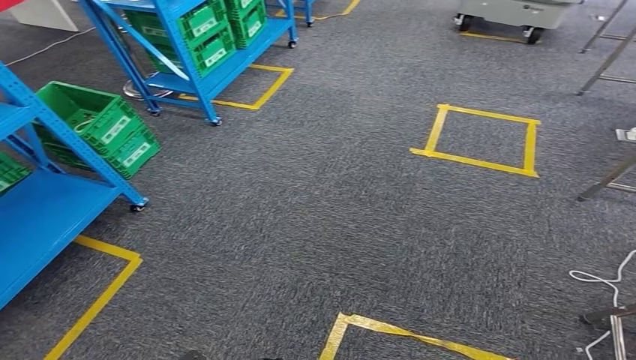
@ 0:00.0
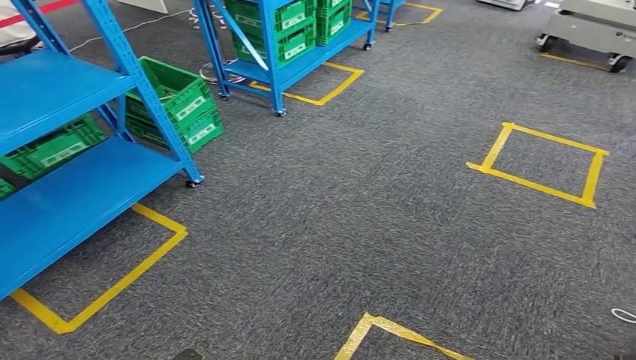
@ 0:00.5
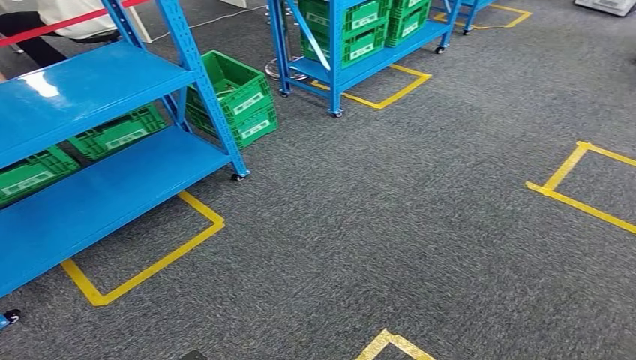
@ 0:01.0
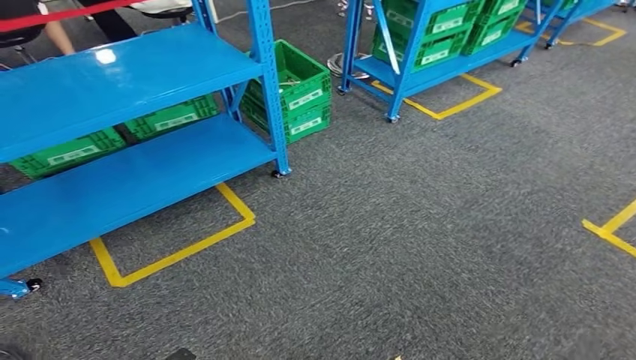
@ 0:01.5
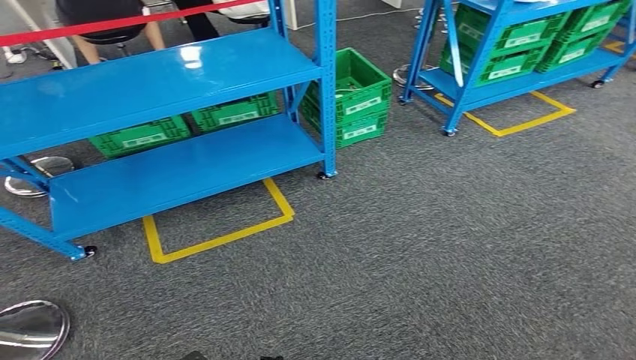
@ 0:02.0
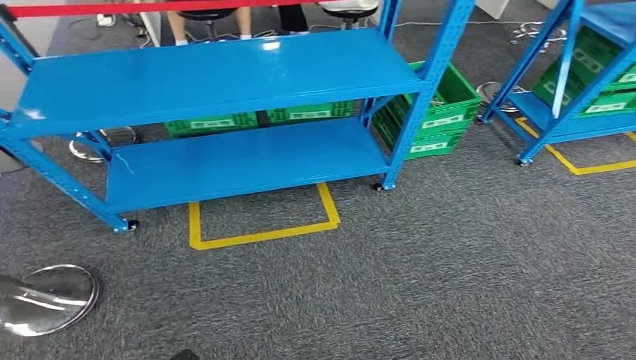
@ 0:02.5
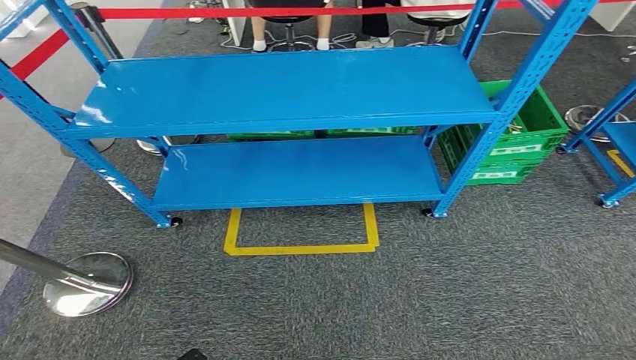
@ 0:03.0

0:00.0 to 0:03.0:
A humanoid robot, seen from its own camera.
Step, 0:00.0 to 0:03.0: Return to the initial position at the workbench.

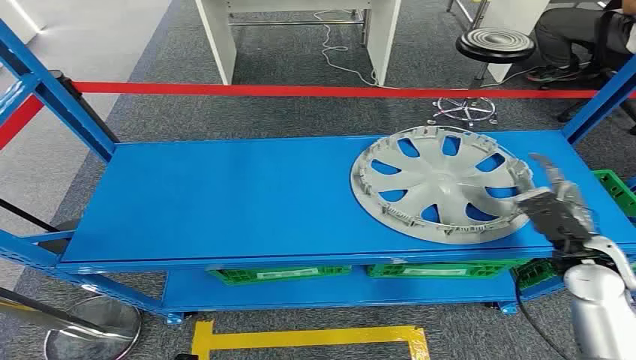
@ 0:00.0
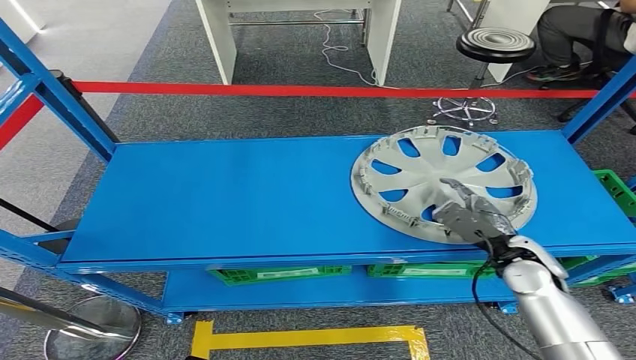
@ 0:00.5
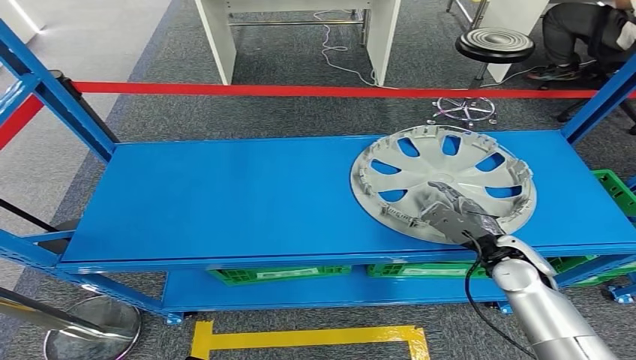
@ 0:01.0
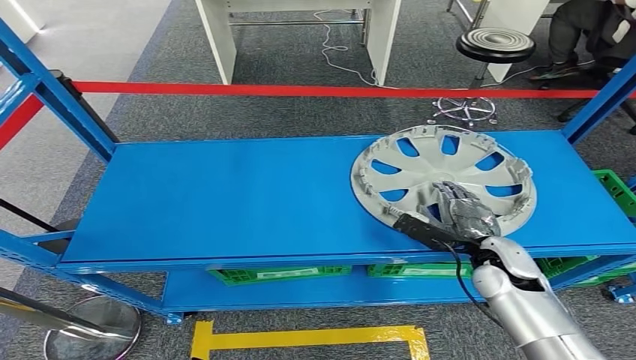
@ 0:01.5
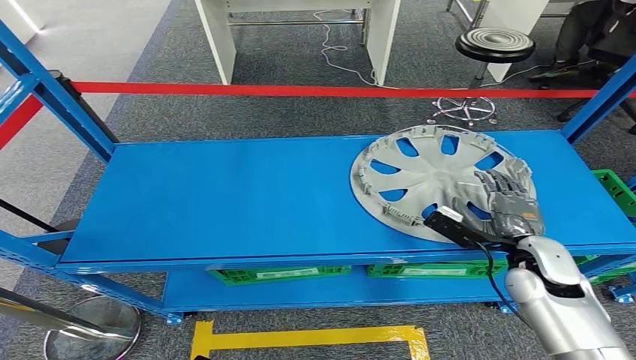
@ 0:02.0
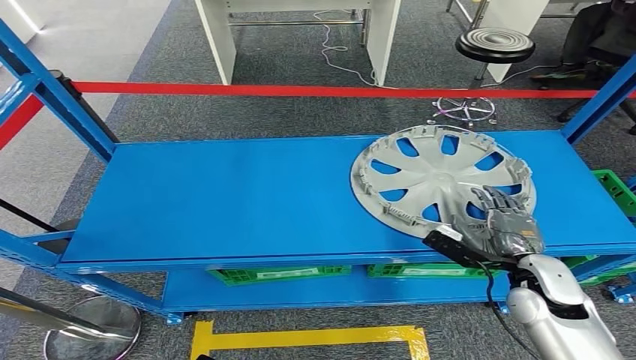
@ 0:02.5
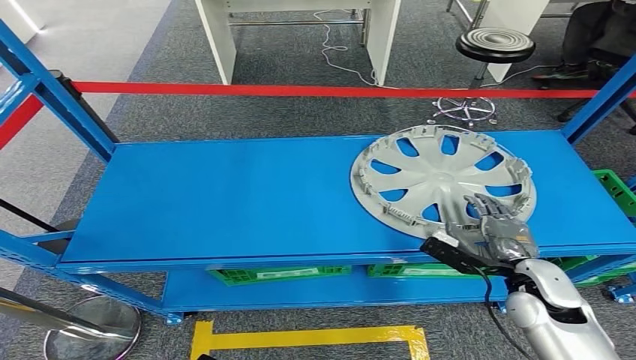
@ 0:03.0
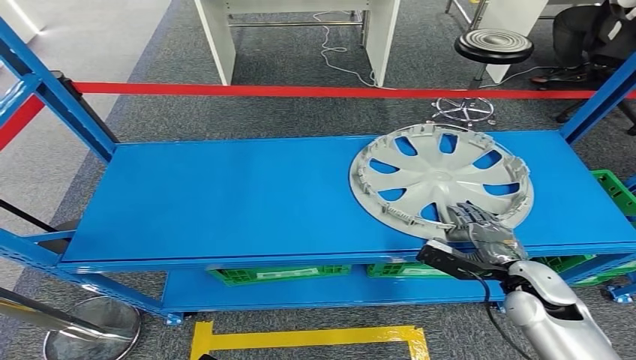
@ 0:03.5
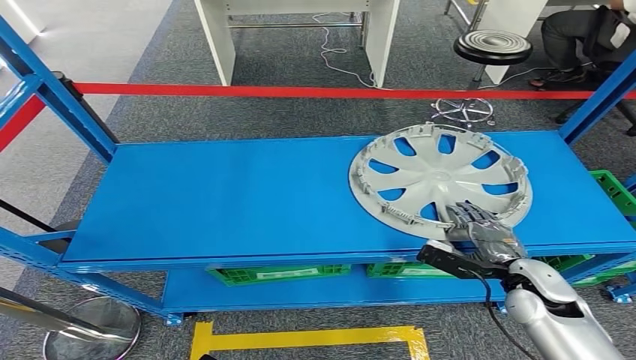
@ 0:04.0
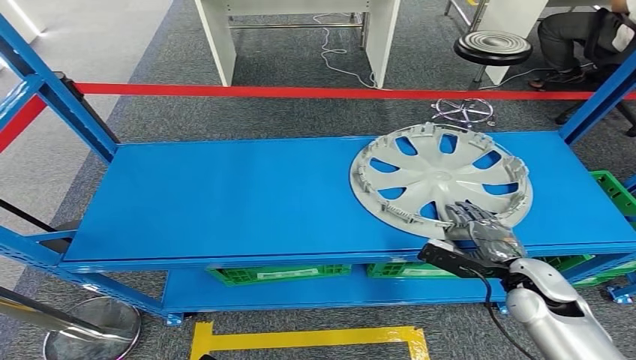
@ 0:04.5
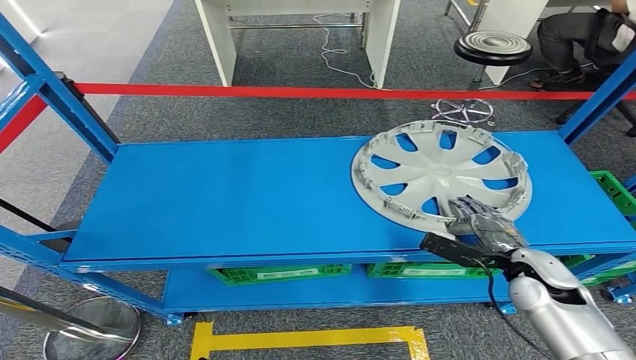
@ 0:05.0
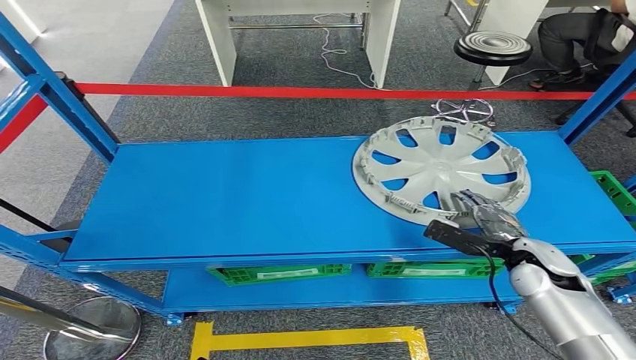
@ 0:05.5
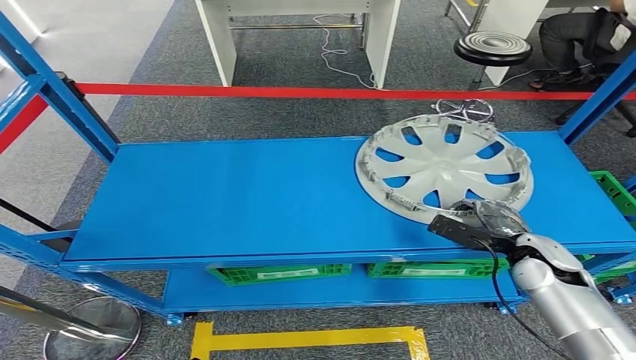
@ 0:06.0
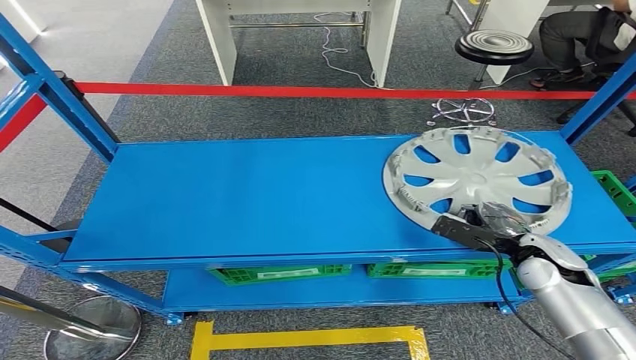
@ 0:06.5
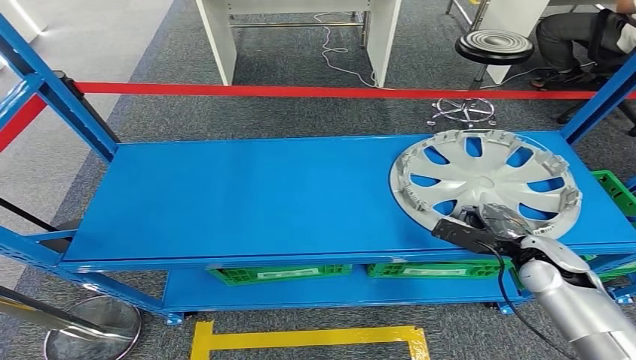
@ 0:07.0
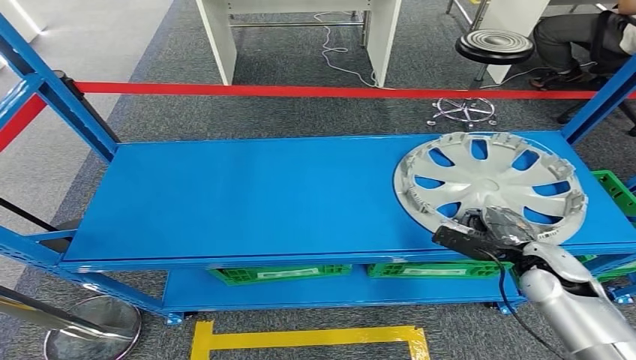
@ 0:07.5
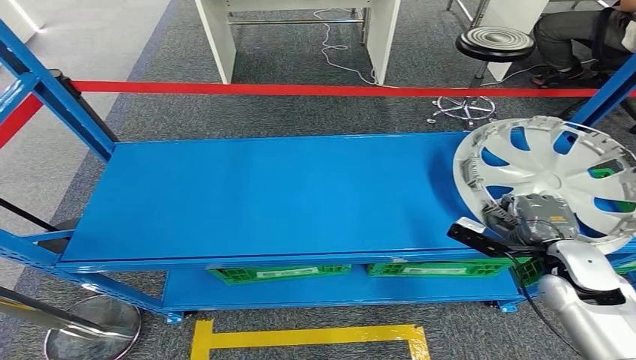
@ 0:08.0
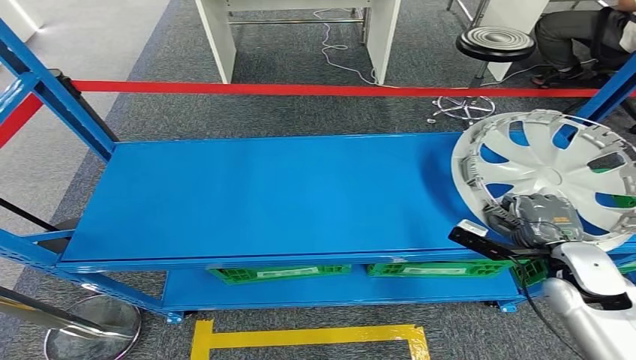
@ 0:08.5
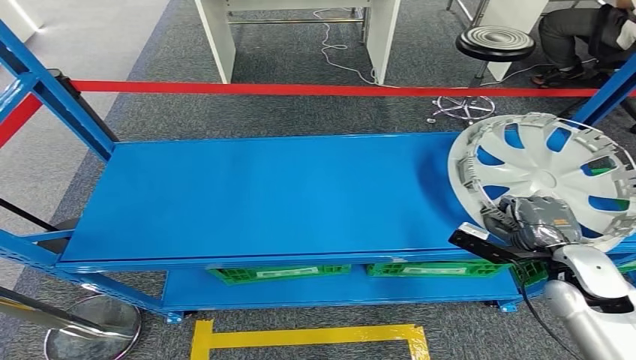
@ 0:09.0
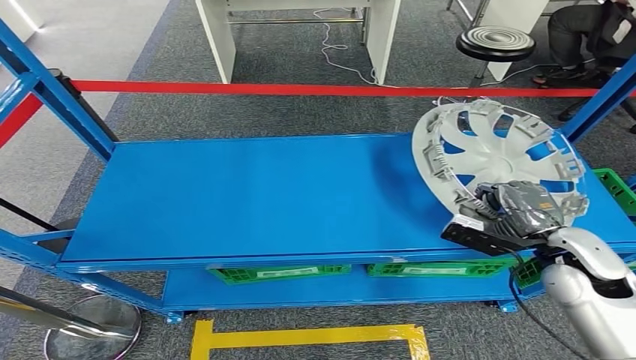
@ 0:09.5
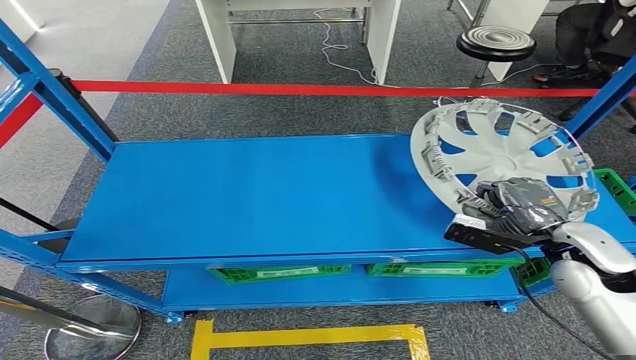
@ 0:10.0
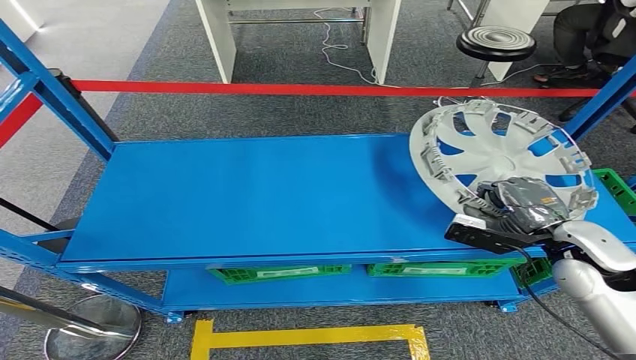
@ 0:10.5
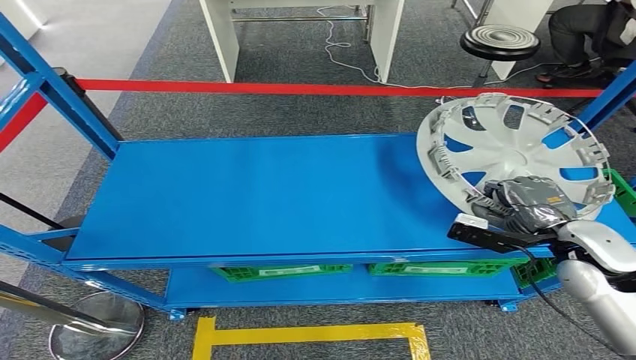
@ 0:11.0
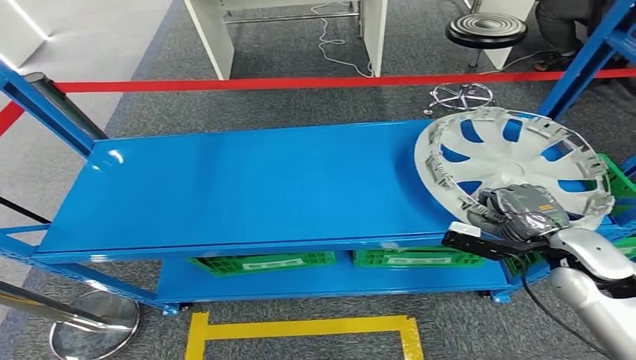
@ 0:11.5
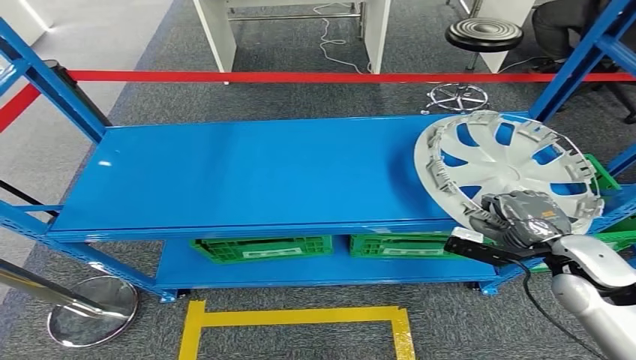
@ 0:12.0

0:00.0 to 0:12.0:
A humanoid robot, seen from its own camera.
Step, 0:00.0 to 0:10.0: Pick up the small component from the shelf.
0:02.0 to 0:04.0: The right hand ends up some 5 cm from where it was.
0:04.0 to 0:06.0: The right hand travels forward by about 5 cm.

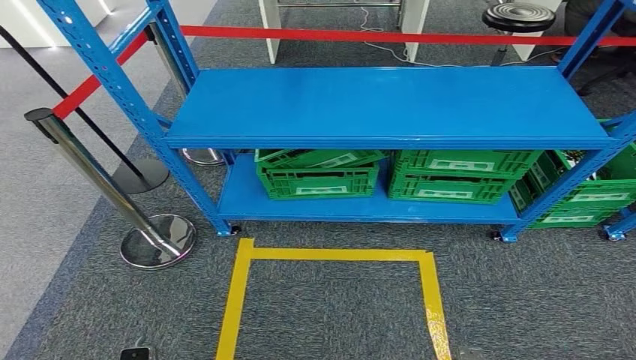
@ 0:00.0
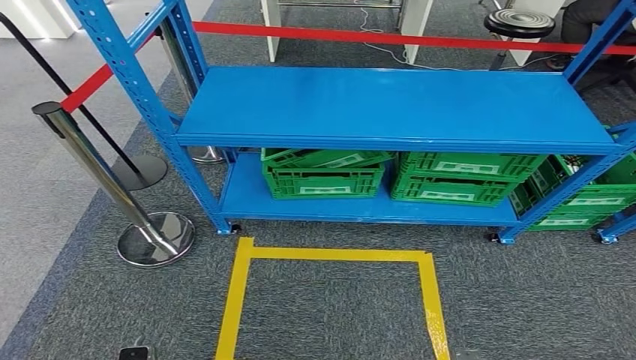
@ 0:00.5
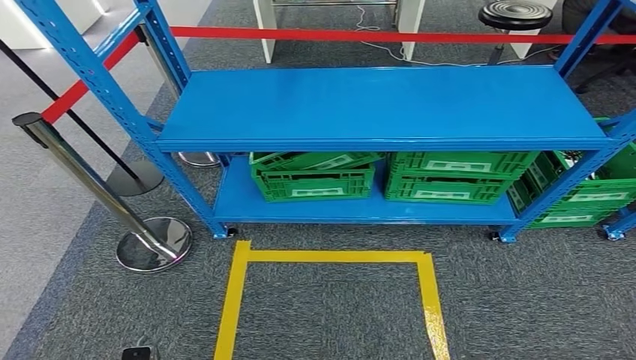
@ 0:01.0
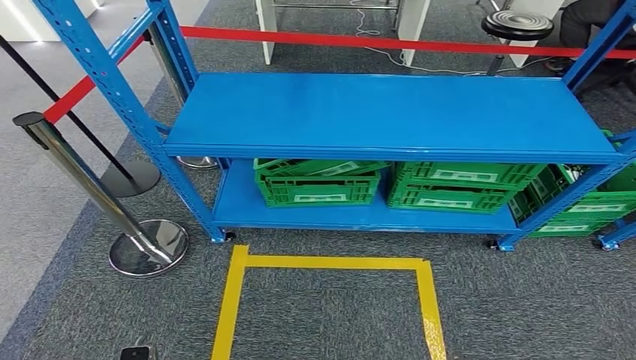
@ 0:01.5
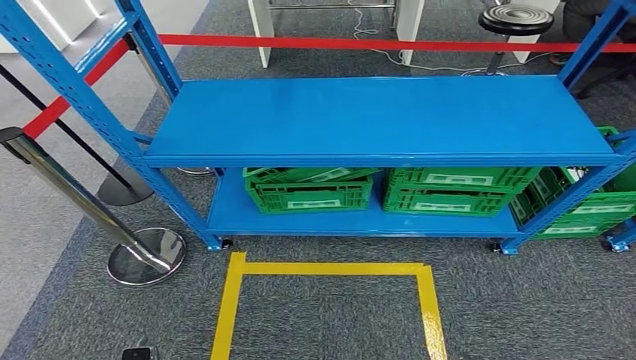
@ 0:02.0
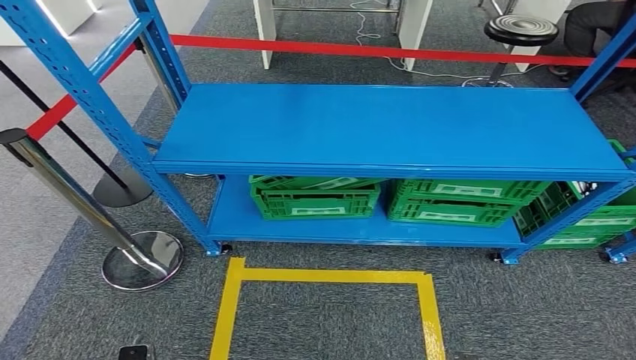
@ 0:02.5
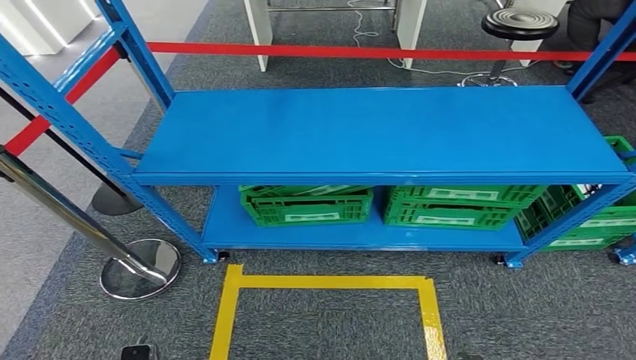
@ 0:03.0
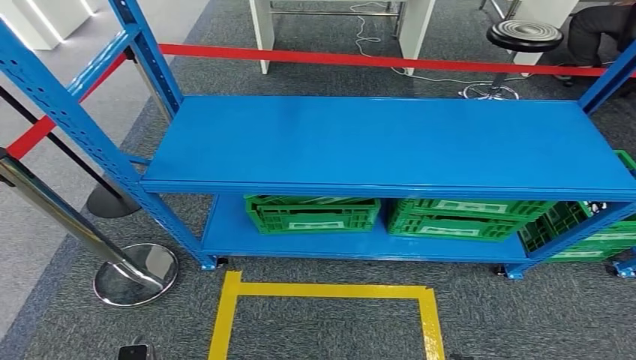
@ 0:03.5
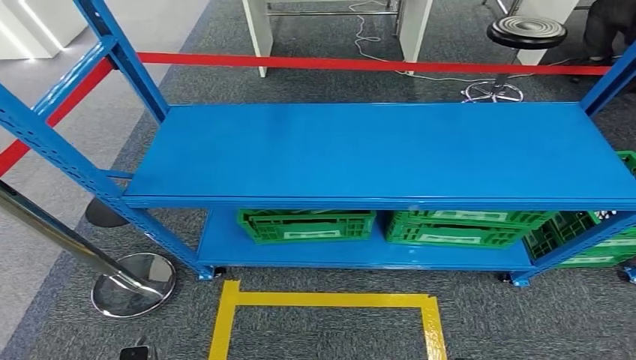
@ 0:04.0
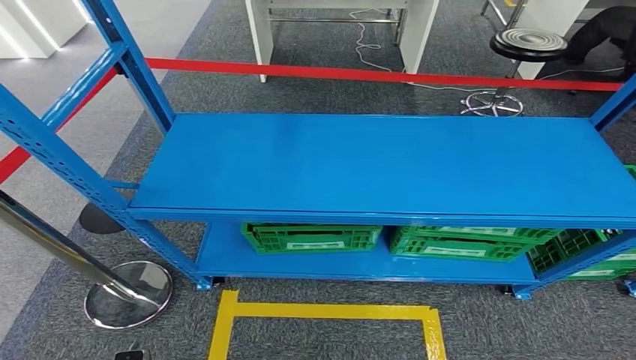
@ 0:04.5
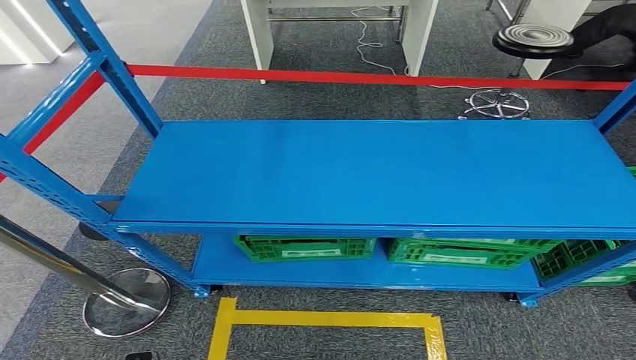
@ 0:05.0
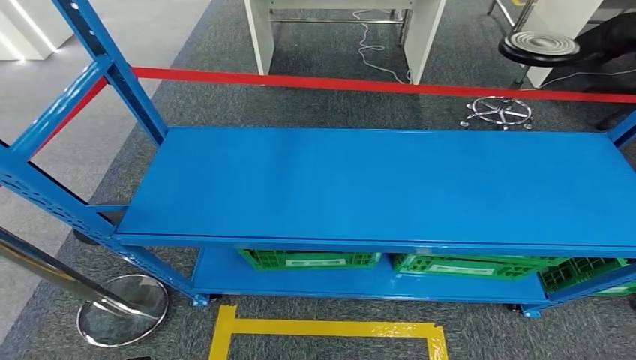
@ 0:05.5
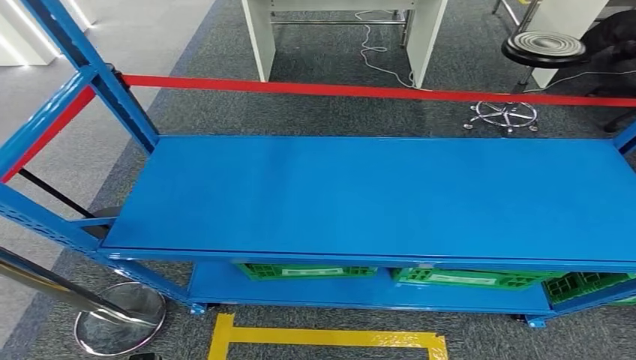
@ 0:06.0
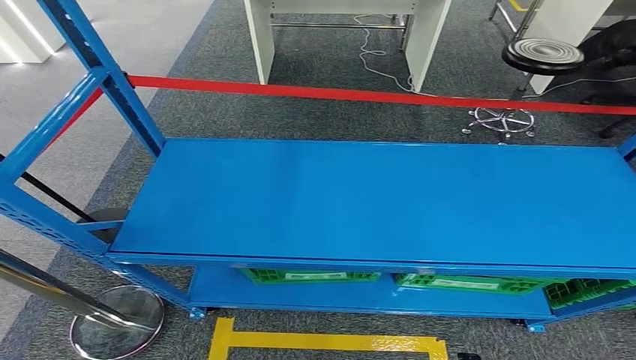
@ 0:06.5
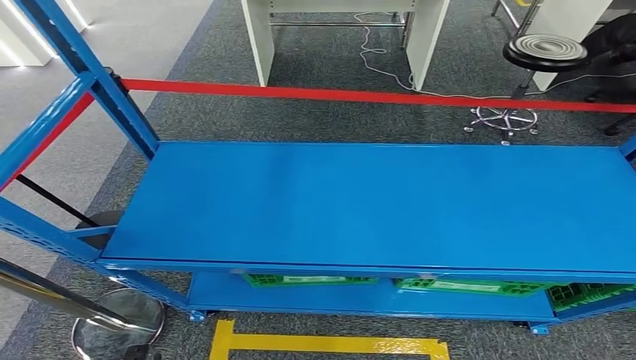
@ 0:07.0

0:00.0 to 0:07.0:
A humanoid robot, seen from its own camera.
Step, 0:00.0 to 0:07.0: Return to the initial position at the workbench.
